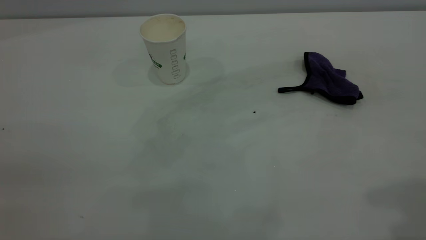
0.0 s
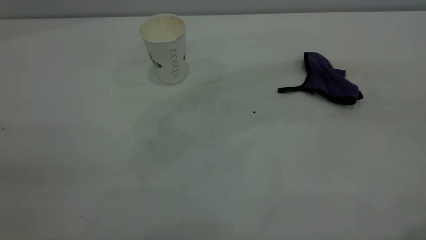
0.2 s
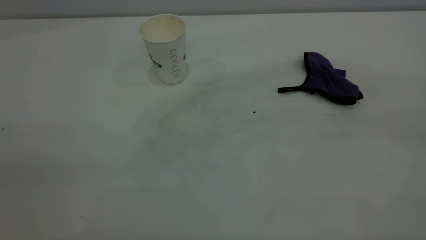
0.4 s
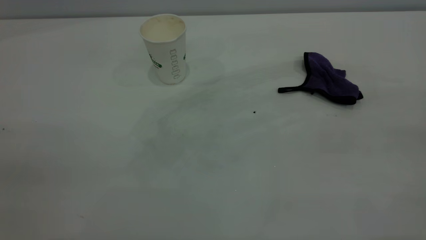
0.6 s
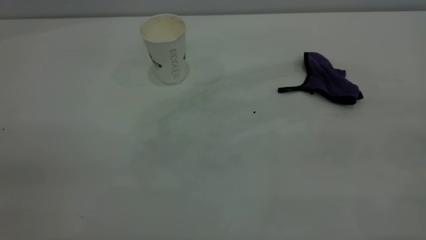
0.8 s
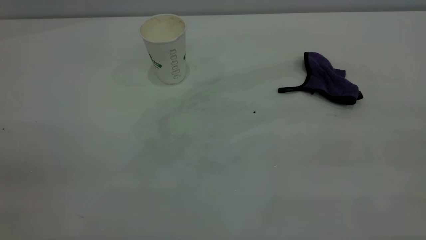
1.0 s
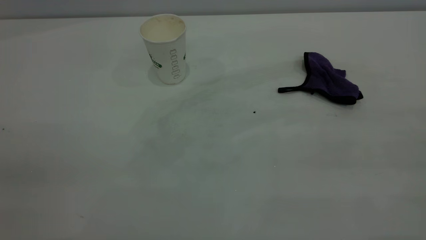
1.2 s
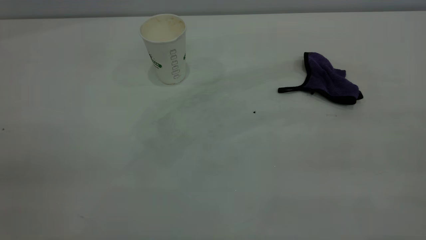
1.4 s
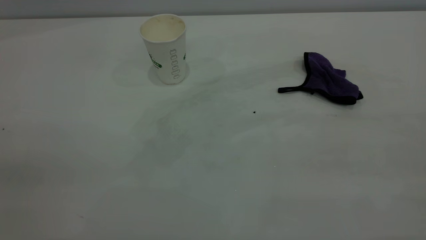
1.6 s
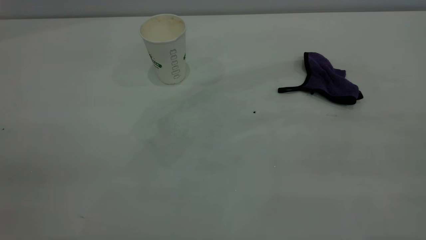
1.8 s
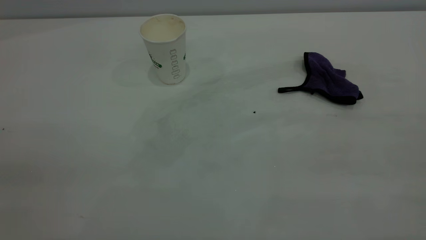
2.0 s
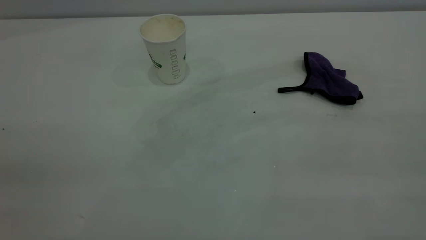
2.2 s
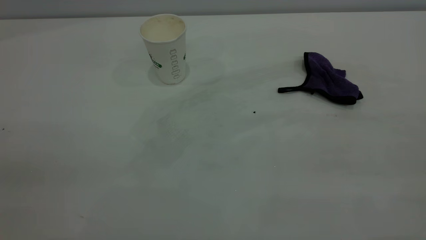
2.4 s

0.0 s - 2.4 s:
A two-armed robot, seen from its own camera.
Task of the whole recording: the left gripper pick up the fallen cup and place it upright, the right gripper grasp the purple rag and wipe the coffee stain on the table, the right gripper put the purple rag back in its original position.
1.2 s - 2.4 s: Both grippers stay about where they are.

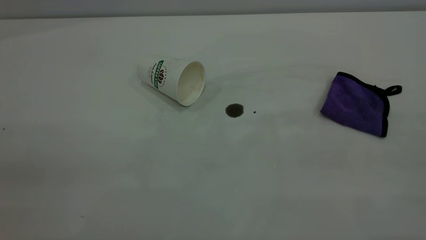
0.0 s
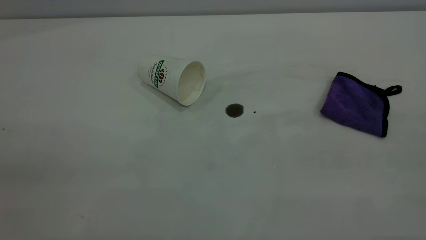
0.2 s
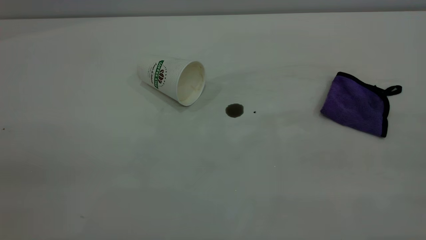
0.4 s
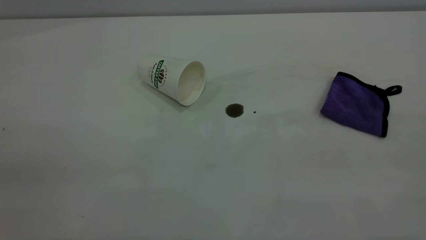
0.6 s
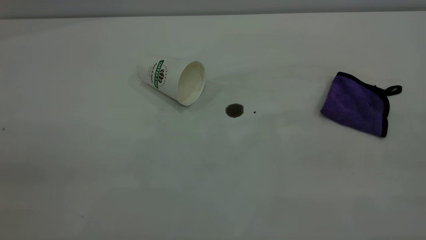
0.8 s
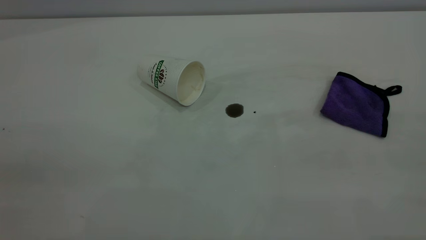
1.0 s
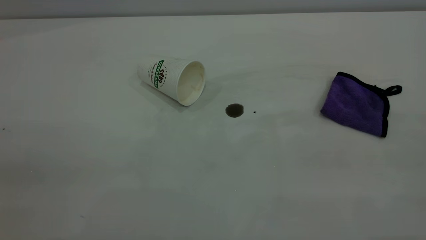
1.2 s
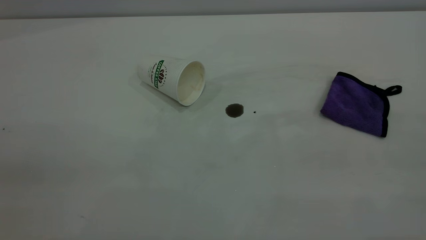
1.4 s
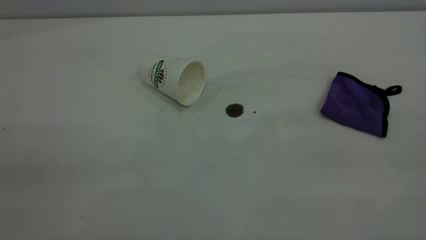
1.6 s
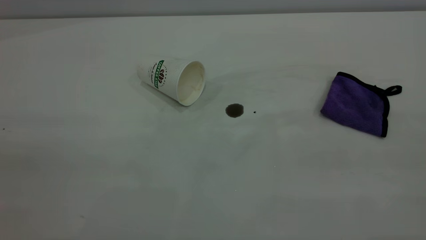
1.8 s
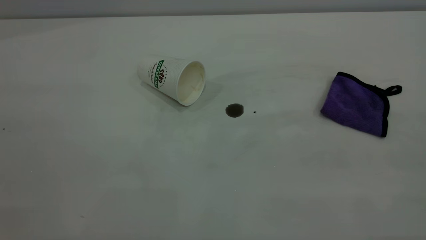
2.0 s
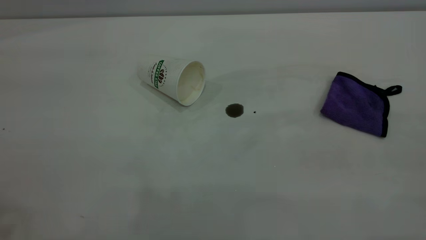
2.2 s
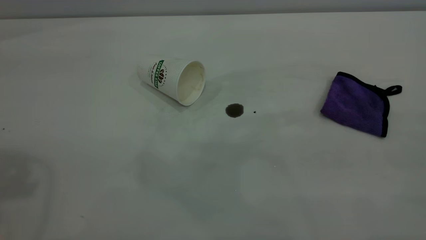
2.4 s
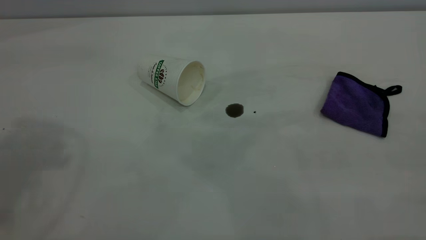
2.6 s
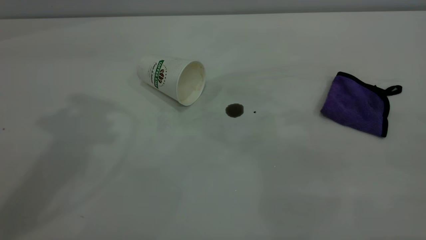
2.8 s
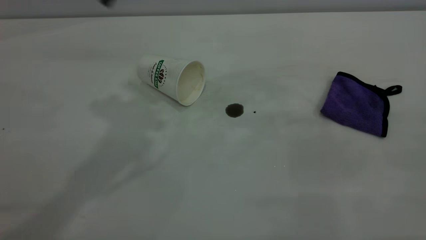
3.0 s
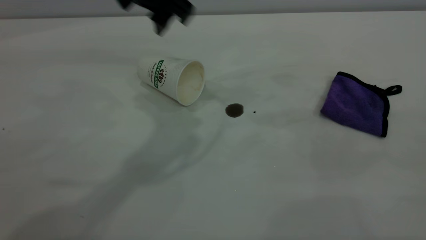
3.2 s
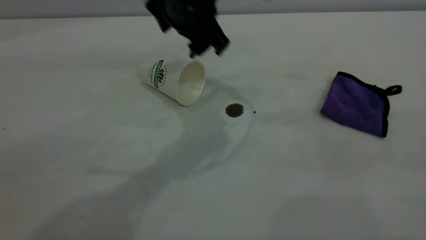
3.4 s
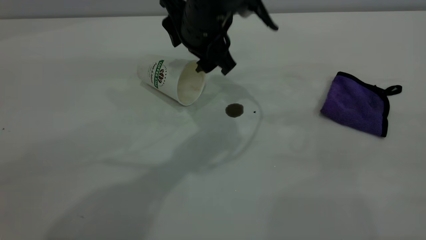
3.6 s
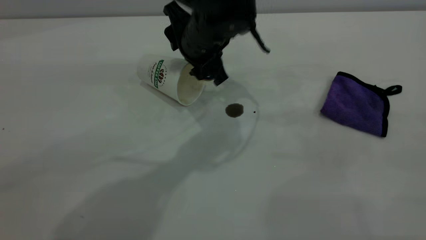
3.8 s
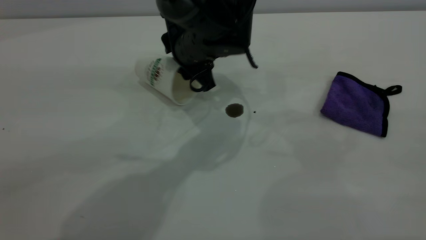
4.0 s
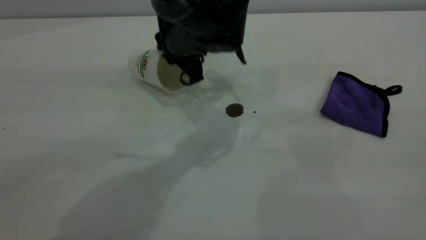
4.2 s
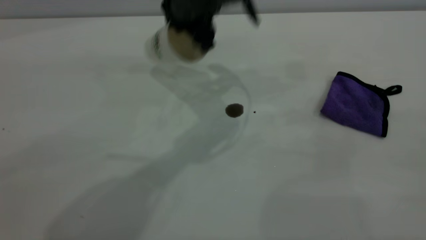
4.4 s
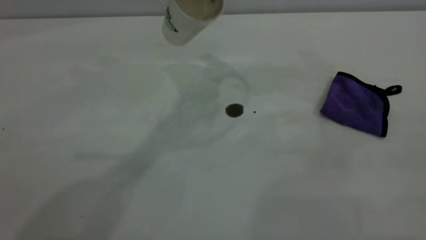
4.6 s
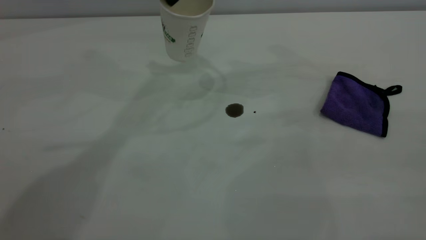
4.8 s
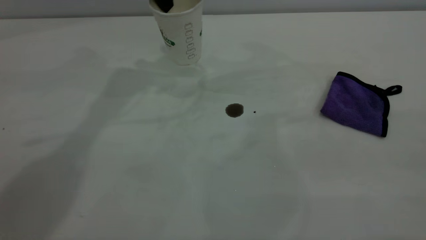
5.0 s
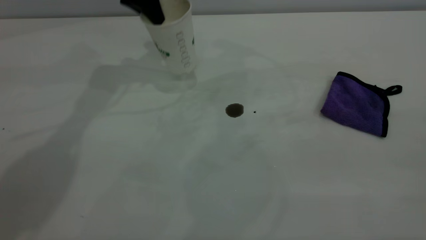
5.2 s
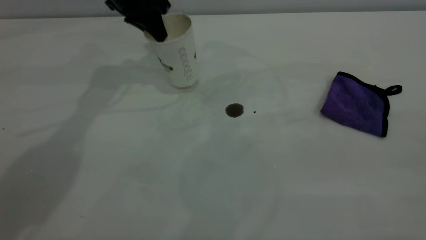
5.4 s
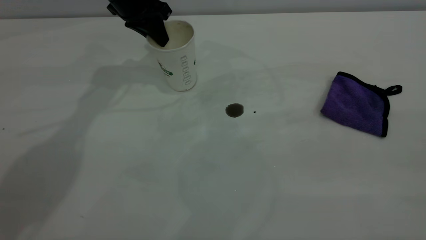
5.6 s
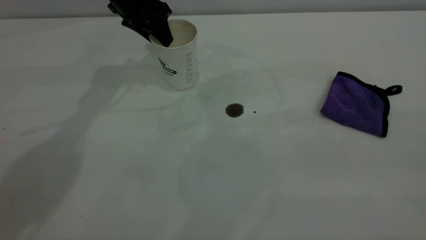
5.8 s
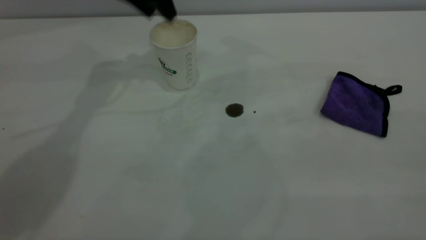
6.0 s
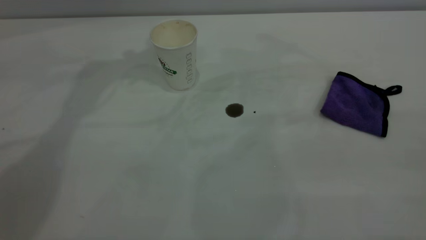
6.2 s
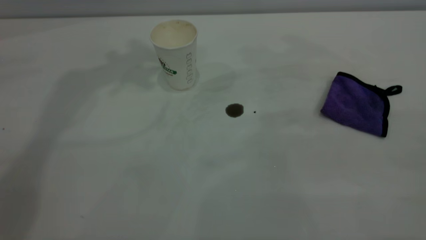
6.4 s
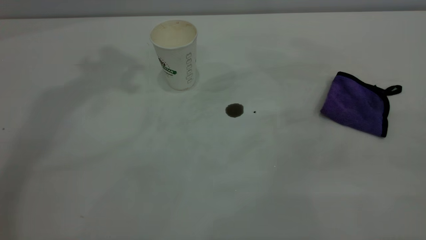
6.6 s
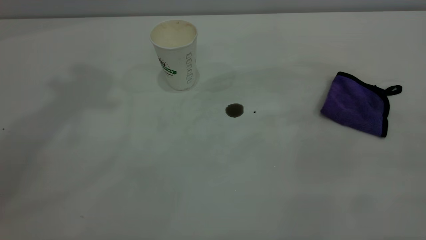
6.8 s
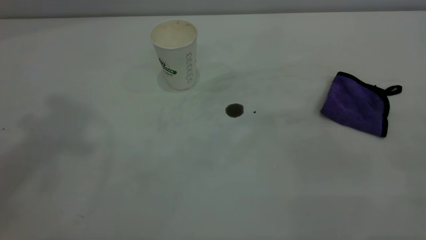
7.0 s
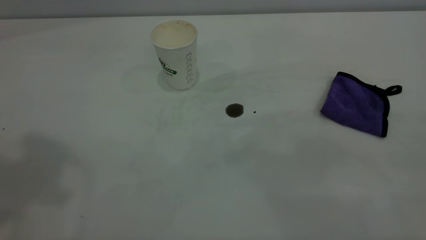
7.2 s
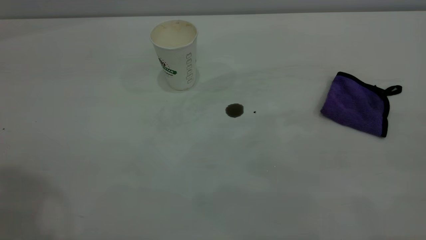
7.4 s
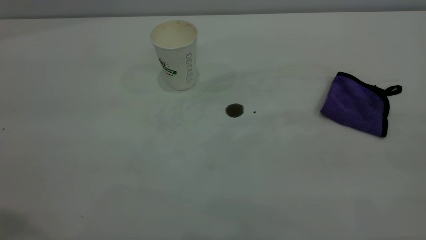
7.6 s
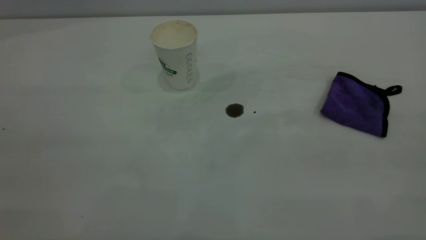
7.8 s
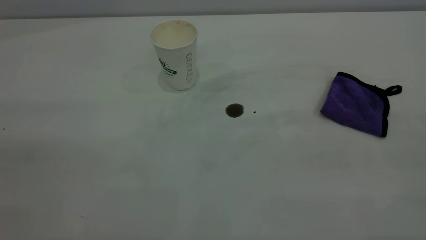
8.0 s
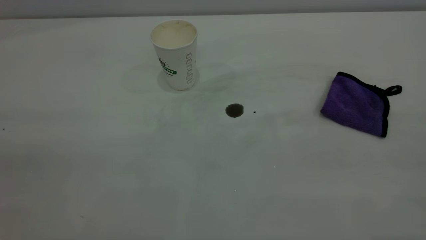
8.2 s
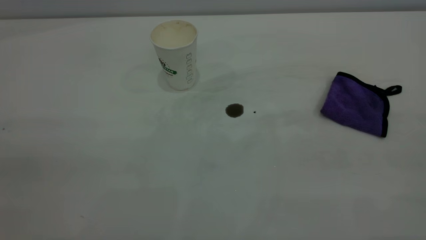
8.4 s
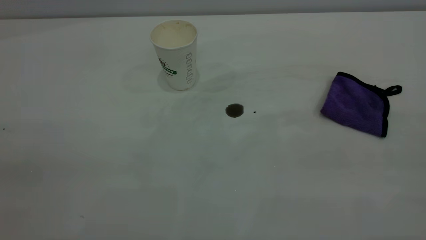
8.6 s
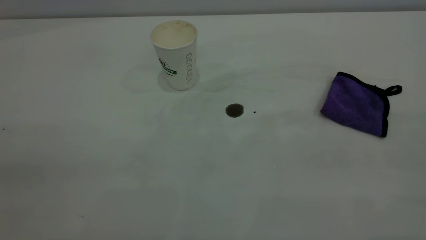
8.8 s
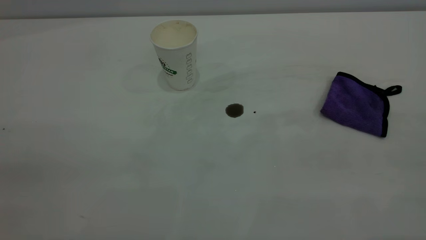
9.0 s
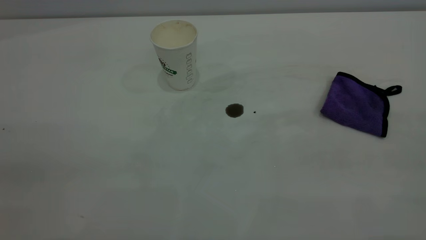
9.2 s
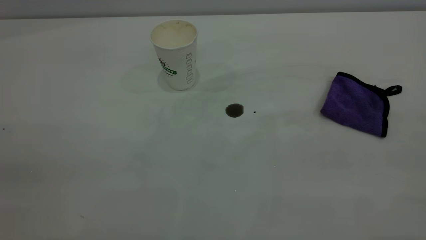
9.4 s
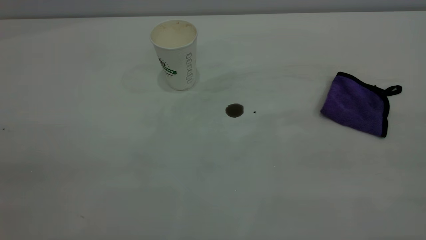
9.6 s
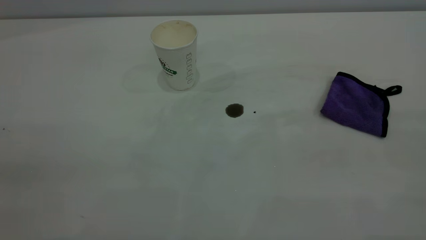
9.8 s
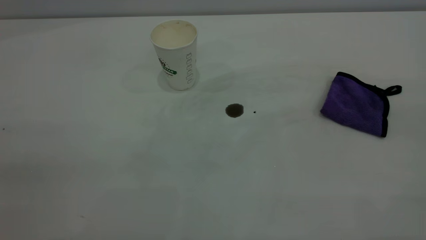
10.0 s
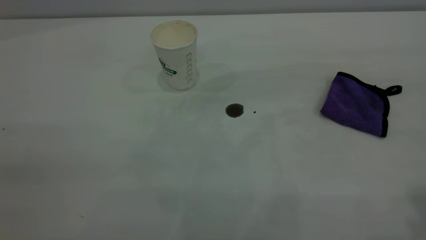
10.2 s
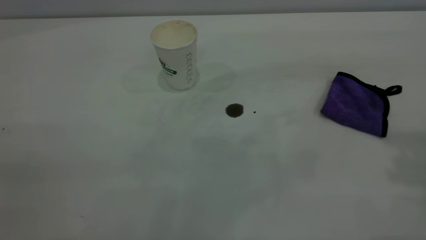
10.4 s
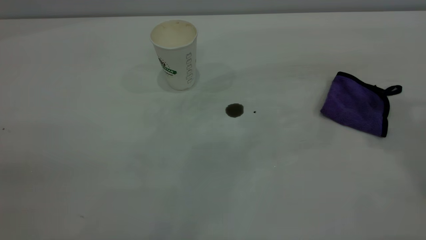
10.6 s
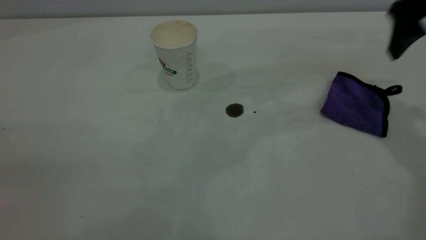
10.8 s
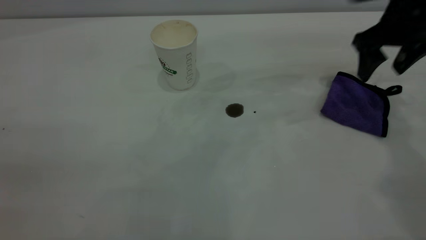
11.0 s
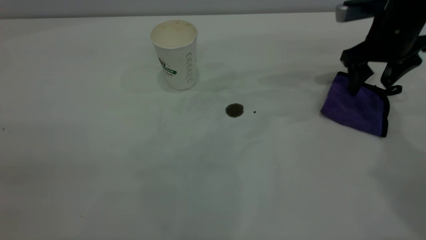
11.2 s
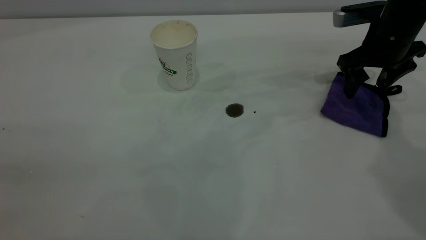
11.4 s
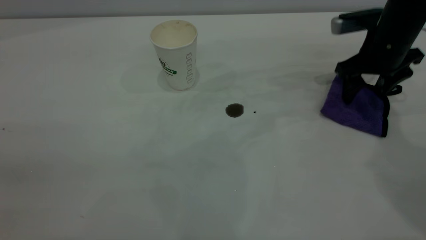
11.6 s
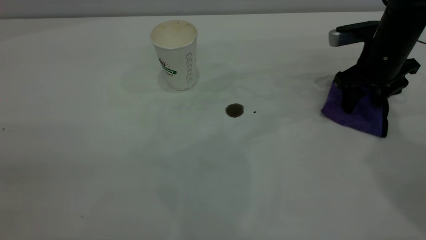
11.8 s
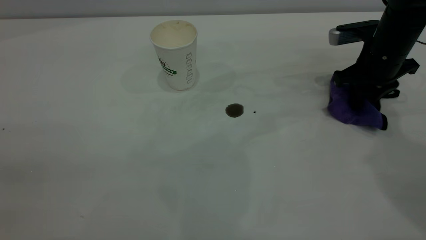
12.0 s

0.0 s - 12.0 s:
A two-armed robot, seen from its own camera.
Task of the whole recording: the left gripper pick up the fallen cup and place it upright, the right gripper grasp the purple rag and wipe the coffee stain on the table, the right gripper put the purple rag back in its original position.
Step, 0.0 s - 5.8 s: Stand the paper cup upright.
0.0 s - 1.6 s: Neither gripper changes place.
3.0 s - 4.4 s: The left gripper heads to the right, downward and forward, covering roughly 15 cm, and closes.
4.4 s - 6.0 s: The left gripper is displaced to the left and forward by approximately 15 cm, and opens.
6.0 s - 7.6 s: The left gripper heads backward and upward, covering approximately 40 cm, and closes its fingers.
10.4 s - 12.0 s: The right gripper heads downward and forward, covering some 30 cm, and closes.

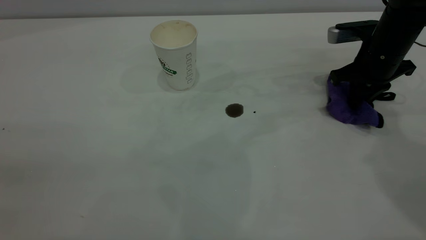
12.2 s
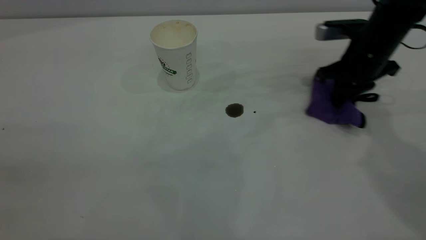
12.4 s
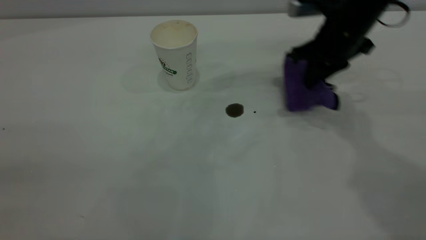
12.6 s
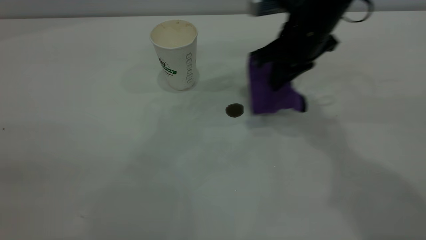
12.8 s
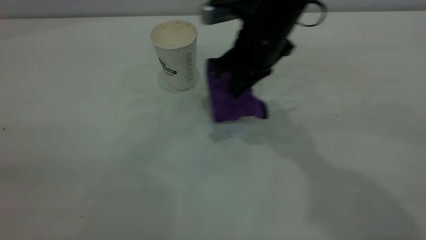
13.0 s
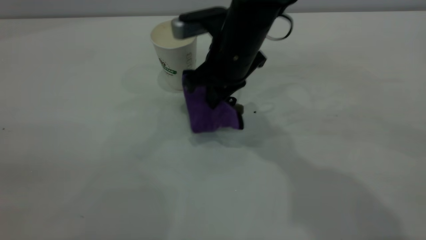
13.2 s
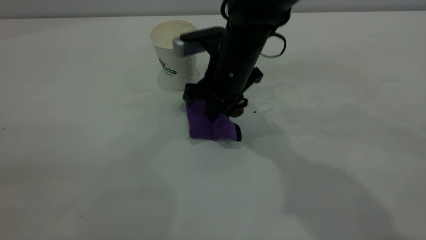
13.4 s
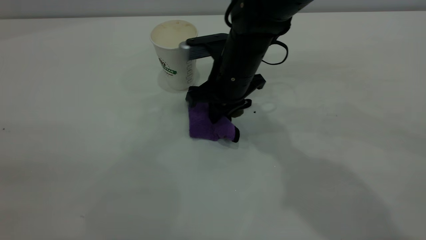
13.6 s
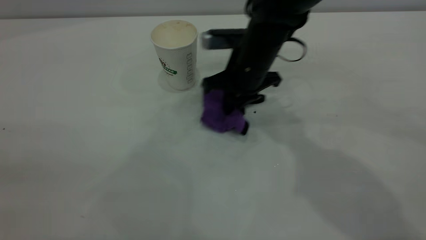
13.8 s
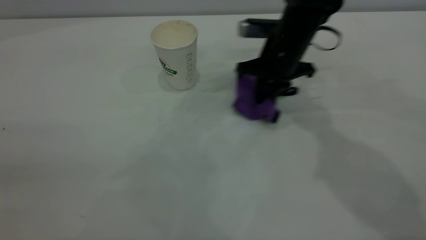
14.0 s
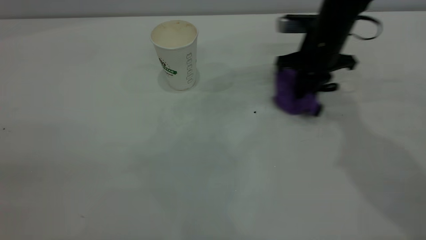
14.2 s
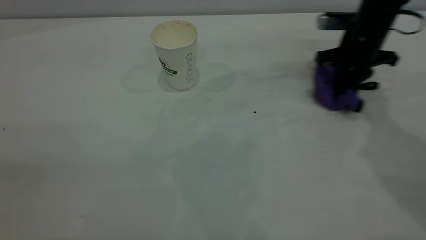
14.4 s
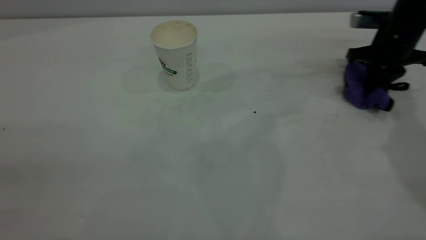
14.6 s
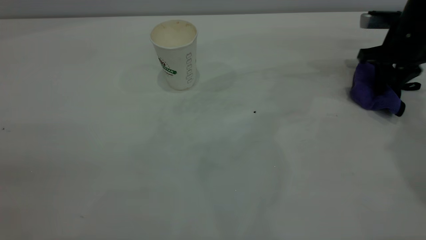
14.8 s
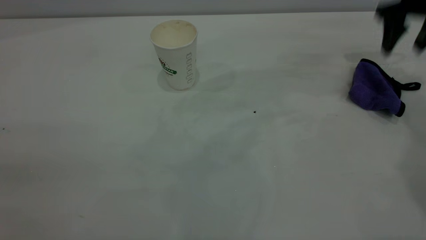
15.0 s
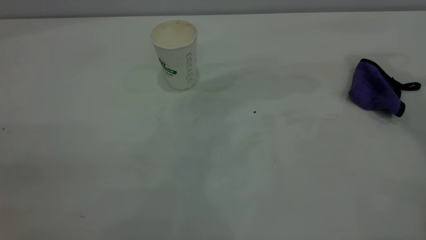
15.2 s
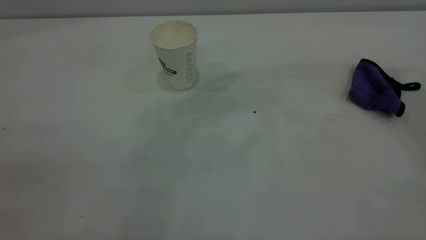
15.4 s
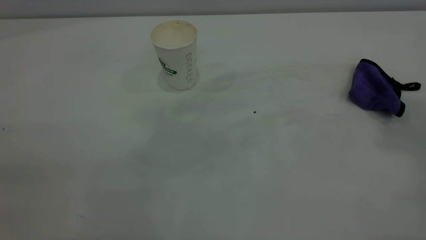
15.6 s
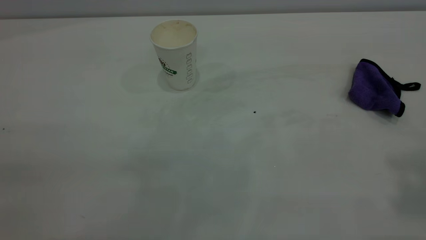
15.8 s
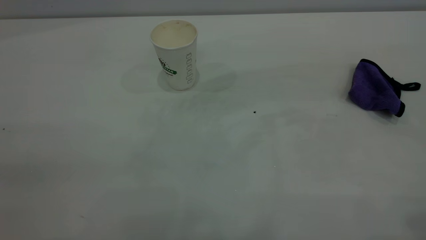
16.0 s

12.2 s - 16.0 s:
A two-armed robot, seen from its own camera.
Task of the whole recording: the left gripper pick up the fallen cup and place it upright, the right gripper grasp the purple rag and wipe the coffee stain on the table, the right gripper put the purple rag back in its original position.
Step, 12.2 s - 14.8 s: Wipe the stains off the table with a rag.
12.2 s - 13.4 s: The right gripper moves to the left, approximately 25 cm.
13.4 s - 14.8 s: The right gripper shifts about 30 cm to the right, and opens up.
14.8 s - 16.0 s: The right gripper heads backward and upward, covering roughly 50 cm, and opens up.
